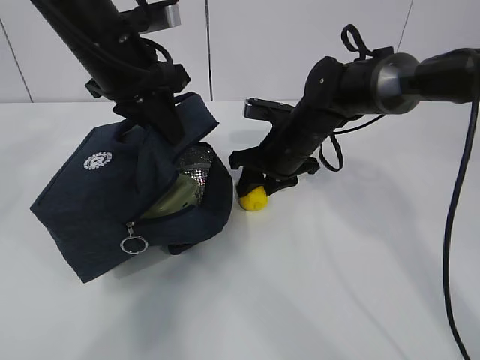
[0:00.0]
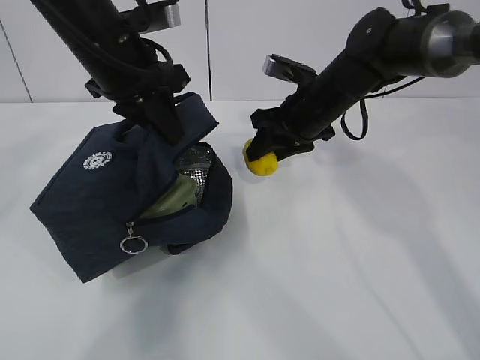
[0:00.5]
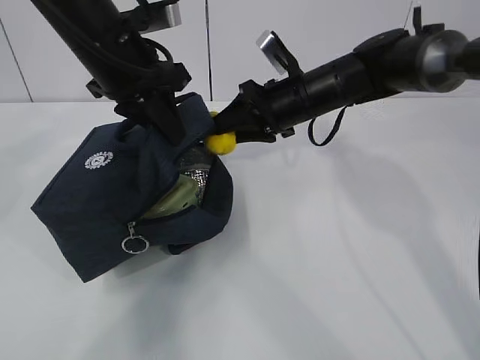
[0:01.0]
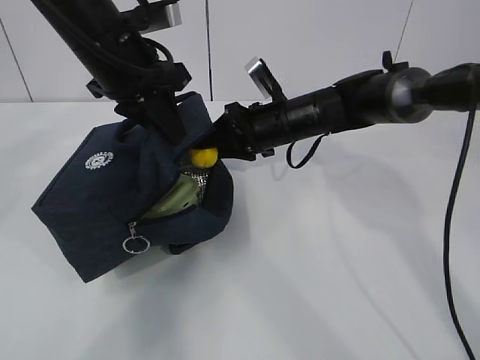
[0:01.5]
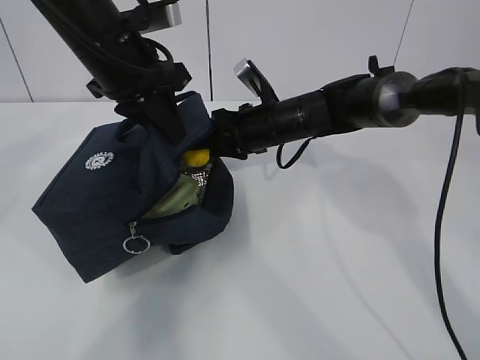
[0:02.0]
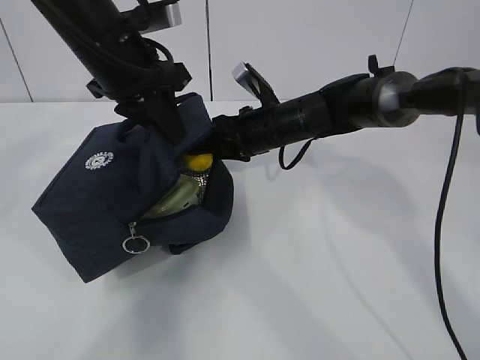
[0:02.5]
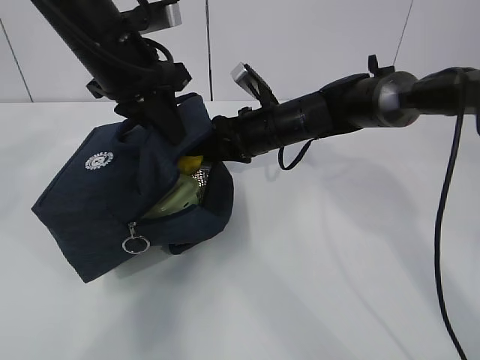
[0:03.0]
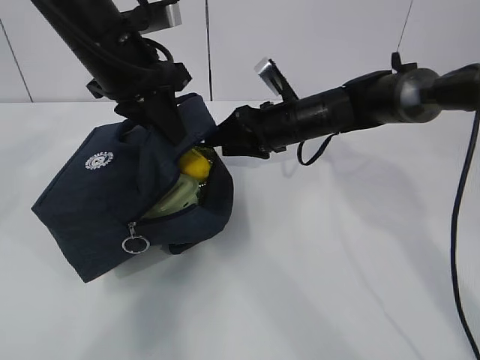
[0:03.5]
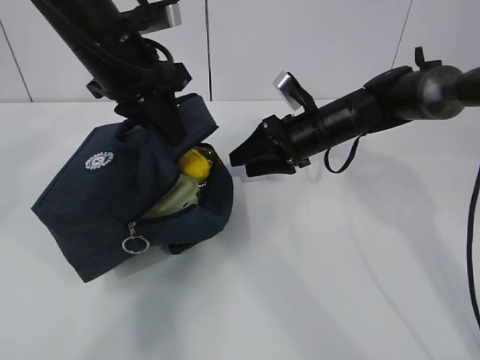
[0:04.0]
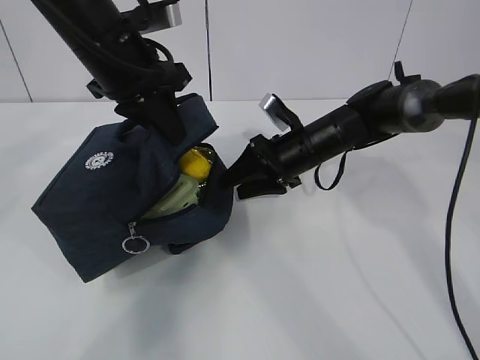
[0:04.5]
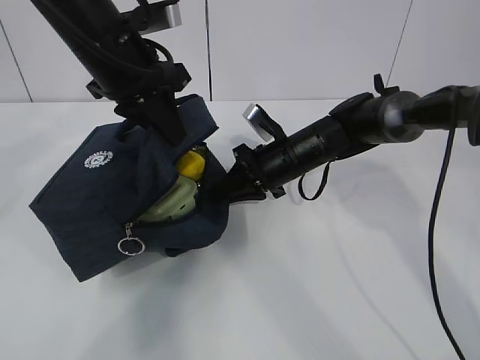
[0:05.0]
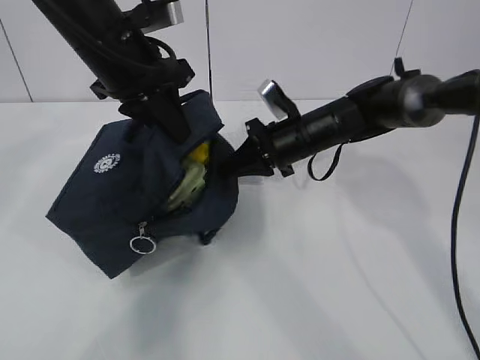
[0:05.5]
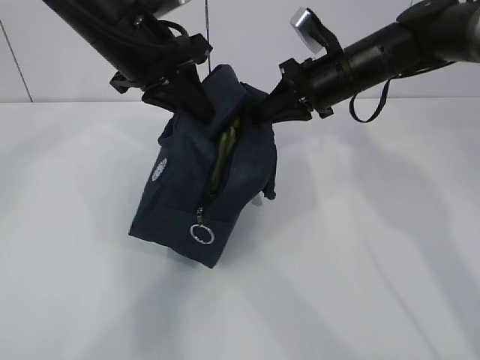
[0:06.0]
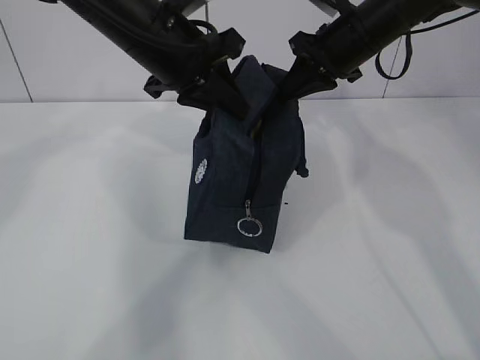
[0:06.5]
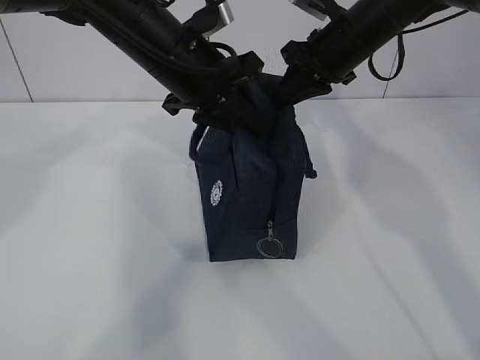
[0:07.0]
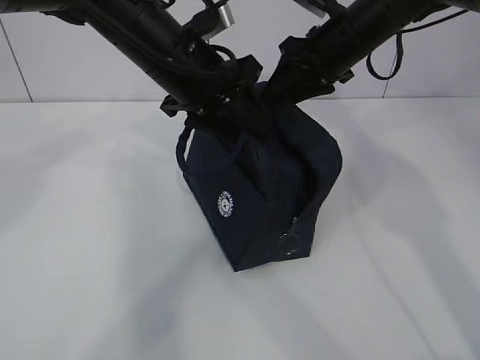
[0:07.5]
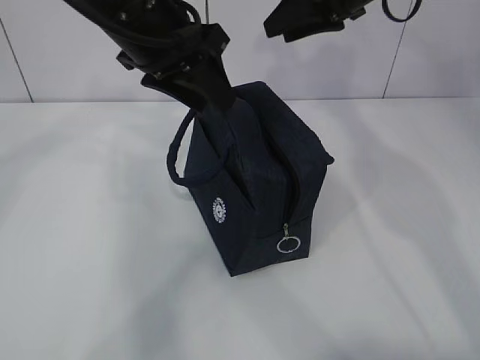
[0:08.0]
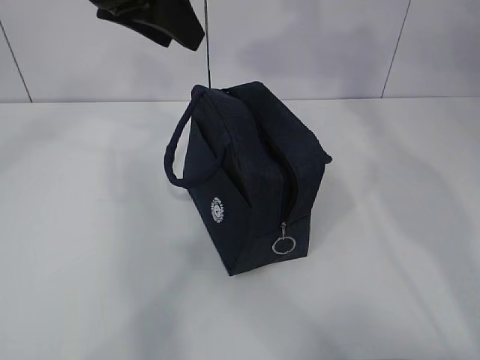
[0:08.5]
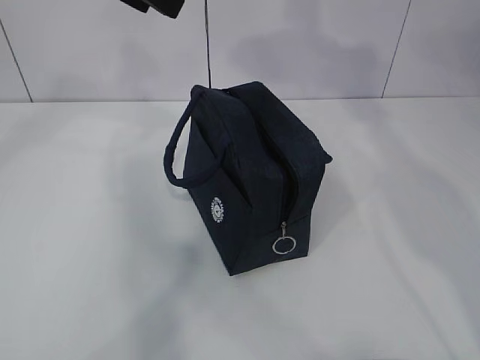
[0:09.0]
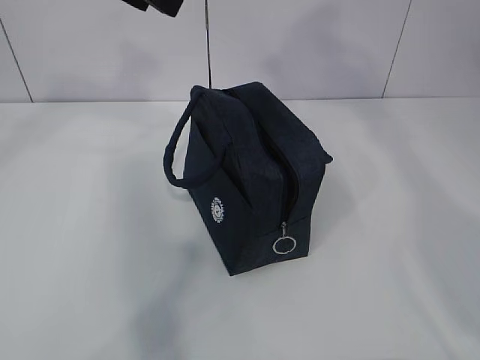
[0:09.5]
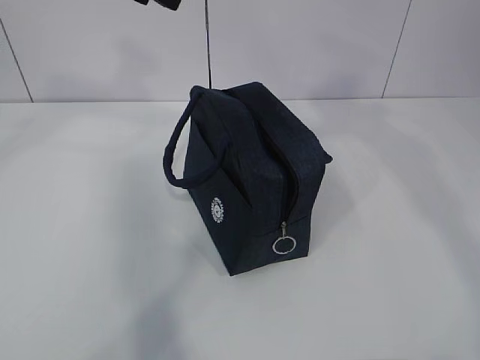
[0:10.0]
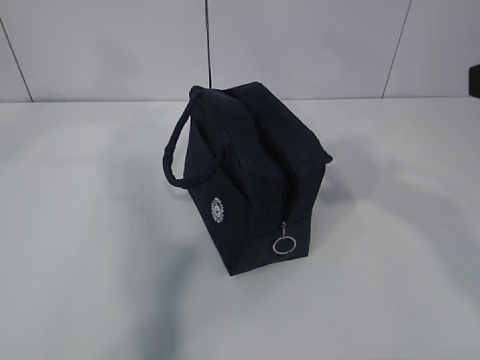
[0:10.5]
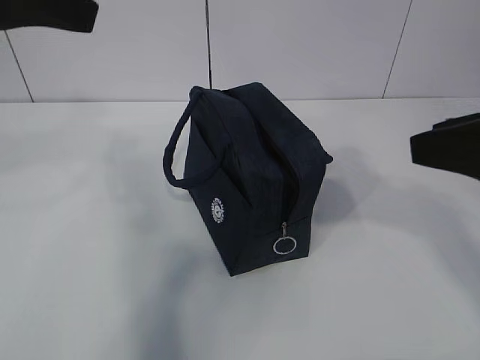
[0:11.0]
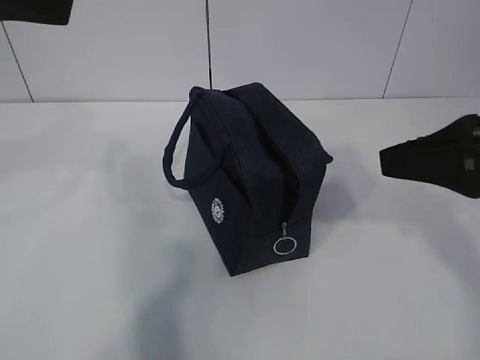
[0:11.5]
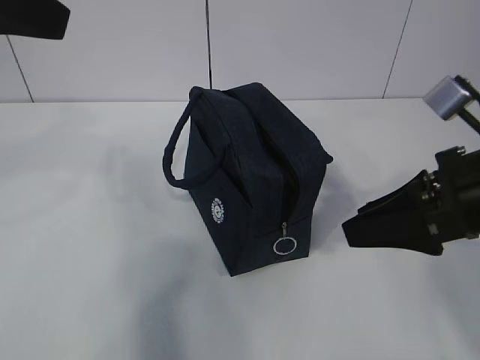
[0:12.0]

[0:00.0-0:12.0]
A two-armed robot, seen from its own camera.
Step, 0:00.0 to 0:02.0: Stand the lunch bag upright with your right hand.
0:02.0 to 0:04.0: The right gripper is displaced to the right by roughly 5 cm.
0:04.0 to 0:06.0: The right gripper goes roughly 10 cm upward, and closes up.
0:06.0 to 0:08.0: The left gripper opens; the right gripper travels upward by about 10 cm, and opens up.
0:08.0 to 0:10.0: The right gripper goes some 25 cm backward and upward. The left gripper moves upward, some 10 cm.
0:10.0 to 0:12.0: The right gripper travels downward by roughly 20 cm. The left gripper moves backward and to the left, about 15 cm.

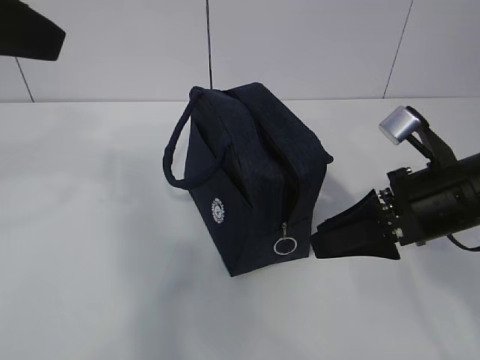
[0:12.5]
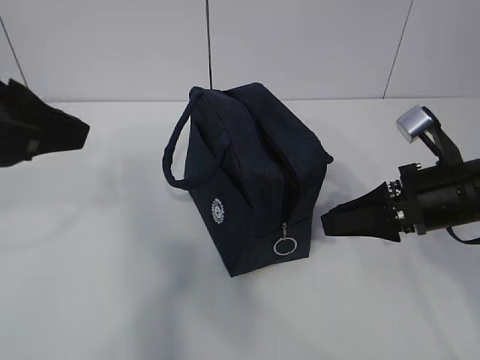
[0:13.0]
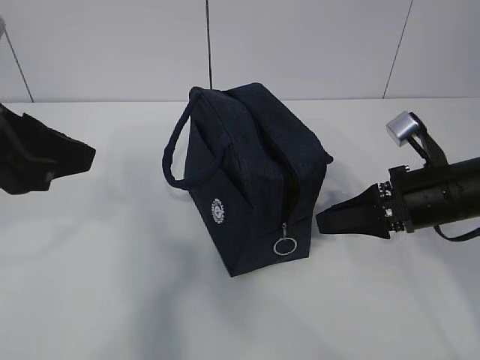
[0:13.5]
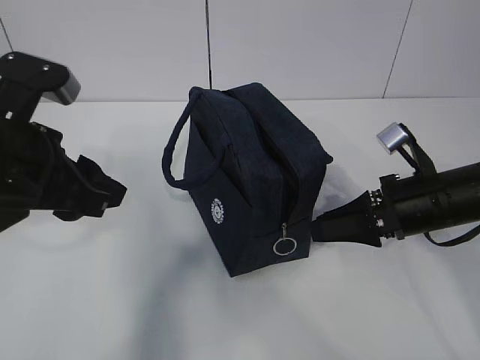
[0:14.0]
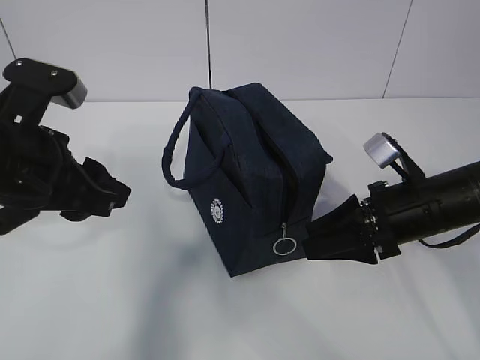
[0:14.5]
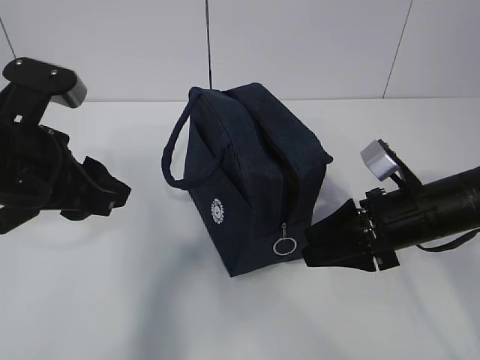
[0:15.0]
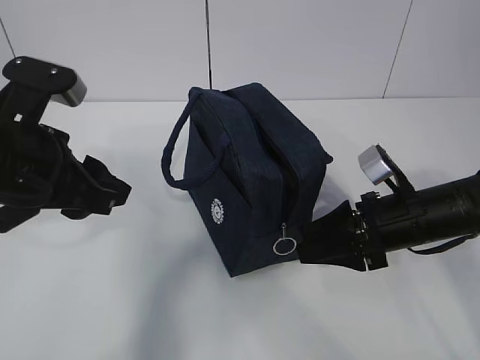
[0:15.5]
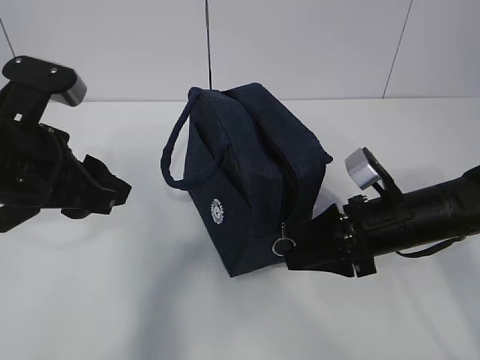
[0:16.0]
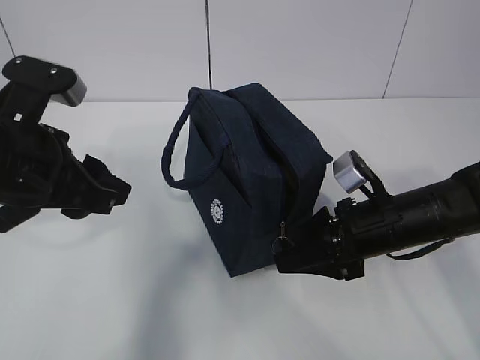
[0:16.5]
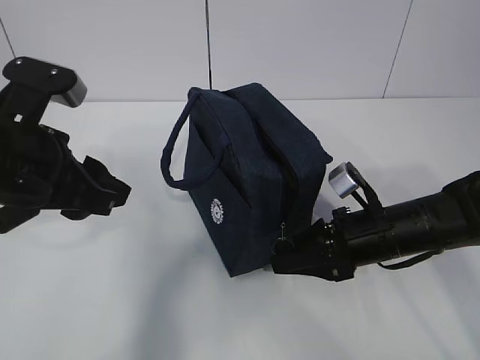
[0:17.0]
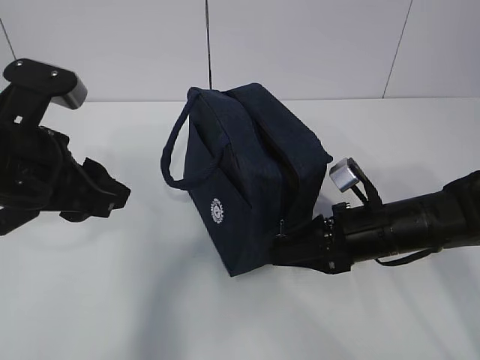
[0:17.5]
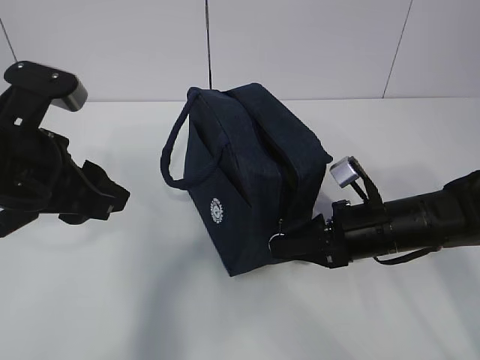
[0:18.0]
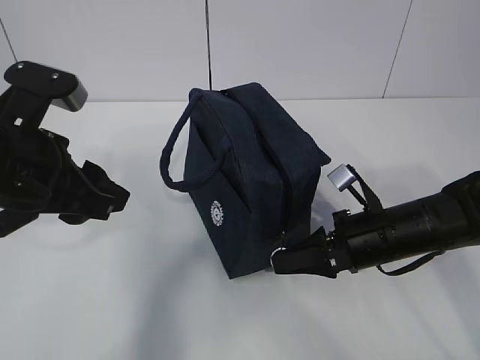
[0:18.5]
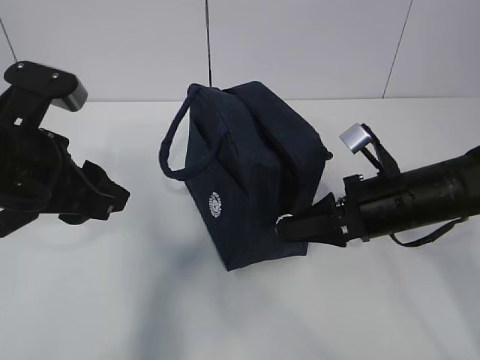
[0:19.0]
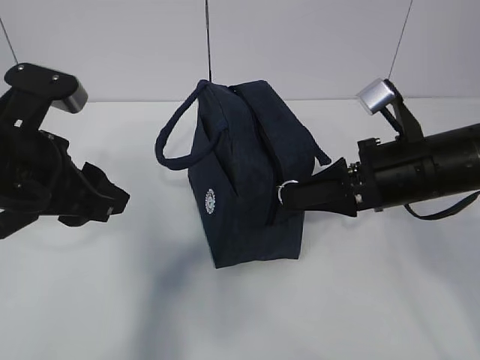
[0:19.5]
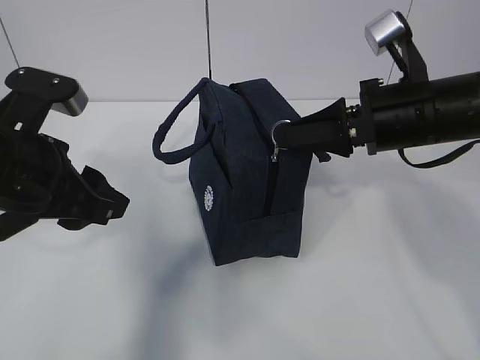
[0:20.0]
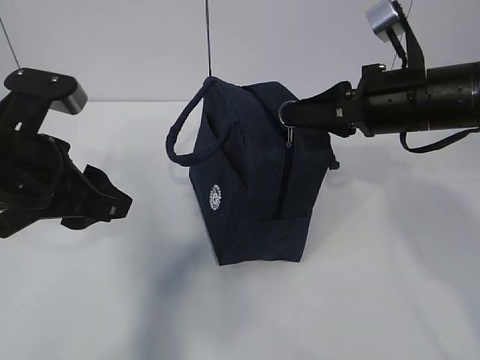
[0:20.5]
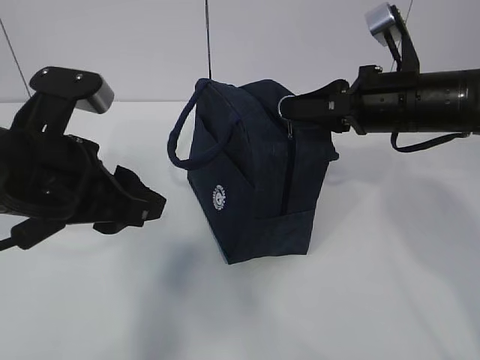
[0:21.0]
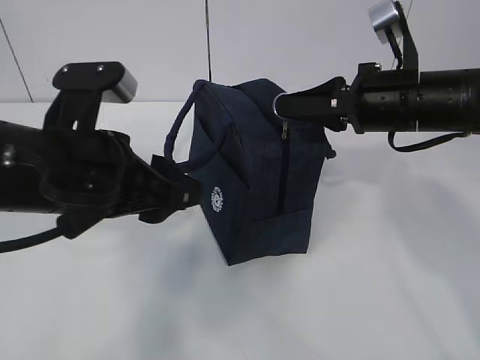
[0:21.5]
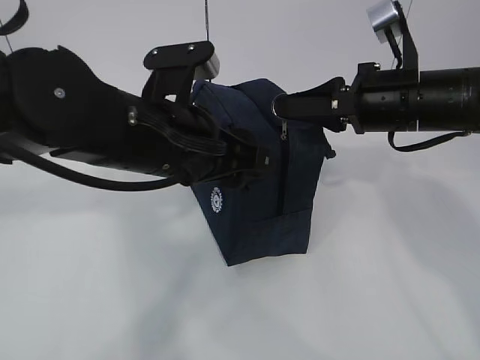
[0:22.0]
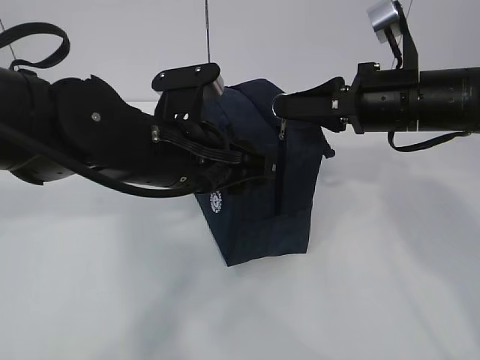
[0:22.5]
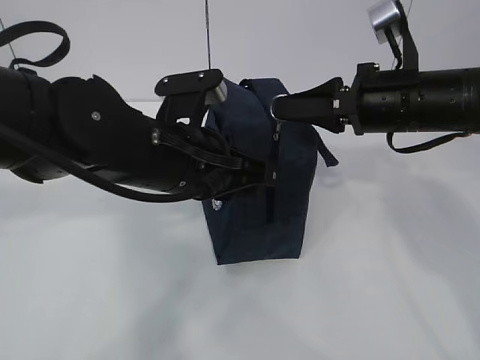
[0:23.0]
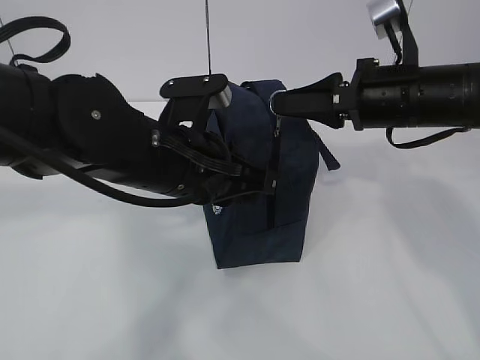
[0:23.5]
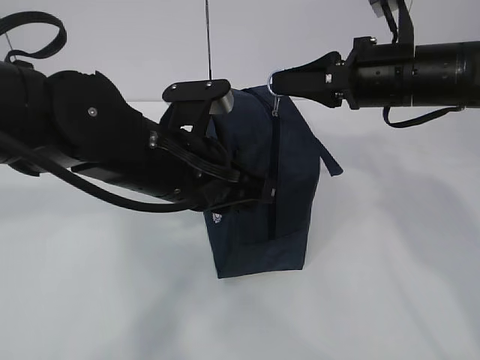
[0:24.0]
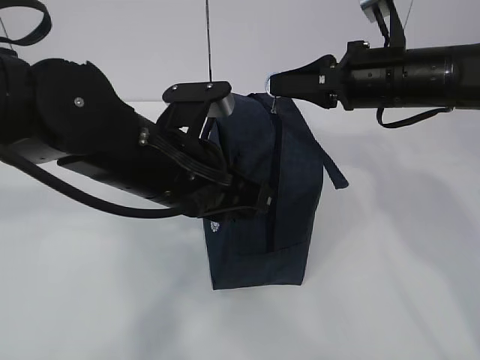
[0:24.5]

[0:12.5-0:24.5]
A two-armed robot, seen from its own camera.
Step, 0:12.5 to 0:16.5: Grab the lunch bag with your left hand.
Step, 0:17.0 to 0:21.5: Pull the zipper with your right hand.
Step, 0:22.0 to 0:23.5: Grab the lunch bag with your left hand.
0:12.5 to 0:14.5: The left gripper moves downward, roughly 15 cm. Meanwhile the right gripper moves downward, some 5 cm.
0:14.5 to 0:16.5: The grippers move only a little.
0:16.5 to 0:18.5: The right gripper closes up.
0:18.5 to 0:20.5: The right gripper travels upward by about 15 cm.
0:20.5 to 0:22.5: The left gripper is displaced to the right by approximately 10 cm.
0:22.5 to 0:24.5: The left gripper closes up.

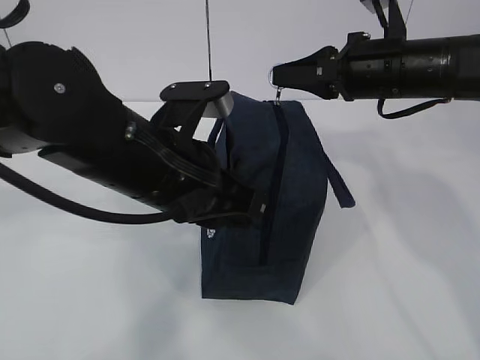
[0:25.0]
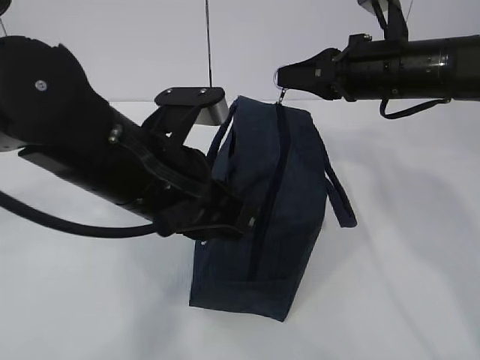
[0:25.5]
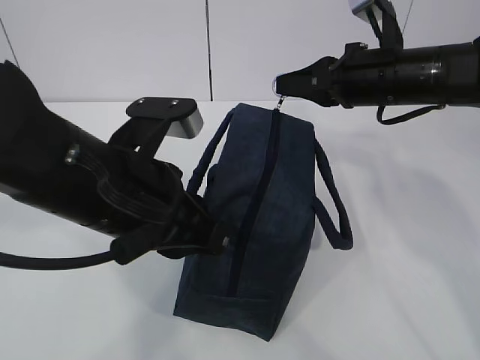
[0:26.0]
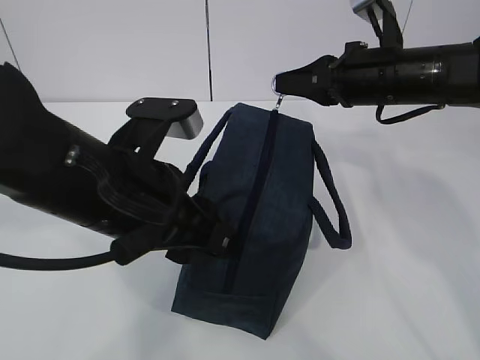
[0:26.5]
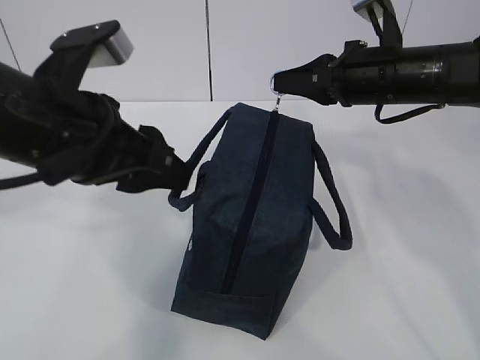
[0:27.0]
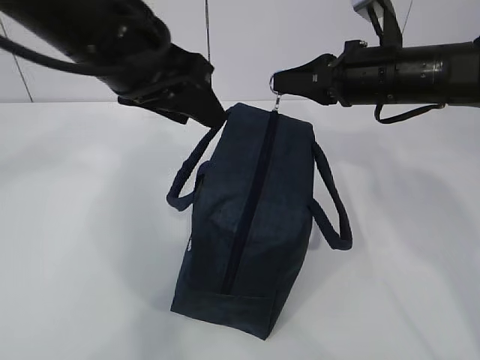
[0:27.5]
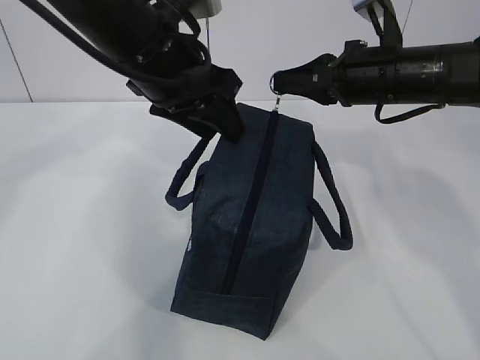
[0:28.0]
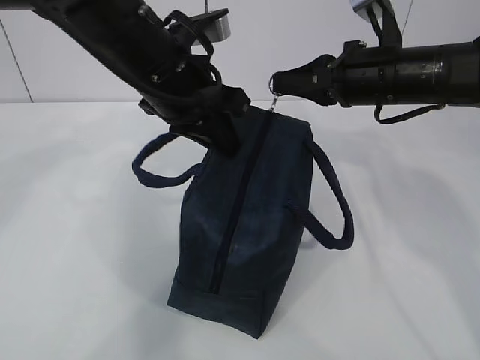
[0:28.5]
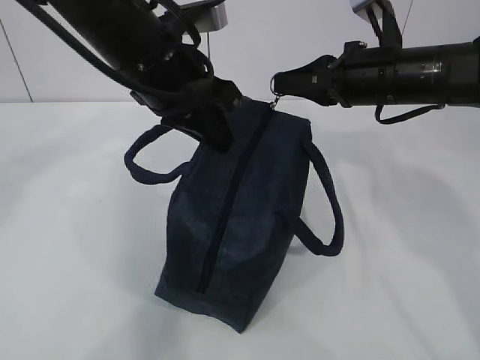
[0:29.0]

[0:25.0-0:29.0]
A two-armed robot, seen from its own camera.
0:25.0 to 0:27.0: The left gripper goes roughly 10 cm to the left and upward, and opens its fingers.
0:27.0 to 0:29.0: The left gripper goes roughly 10 cm forward and to the right, and closes its fingers.
